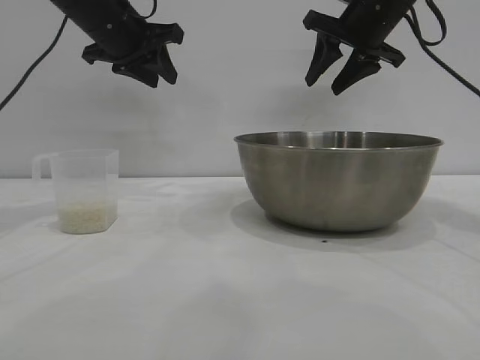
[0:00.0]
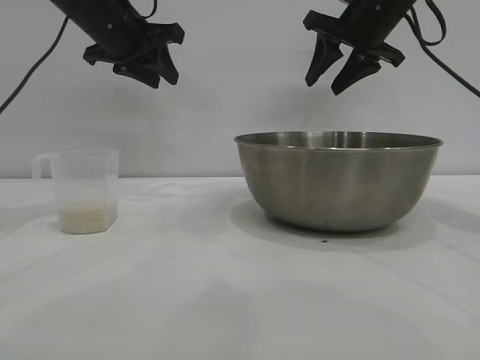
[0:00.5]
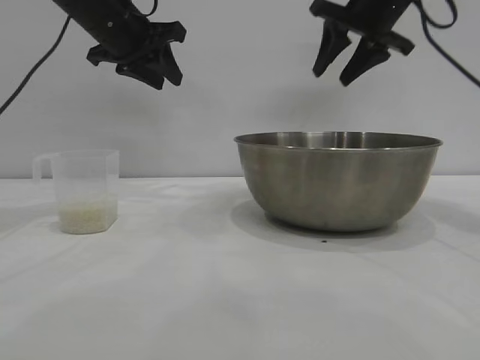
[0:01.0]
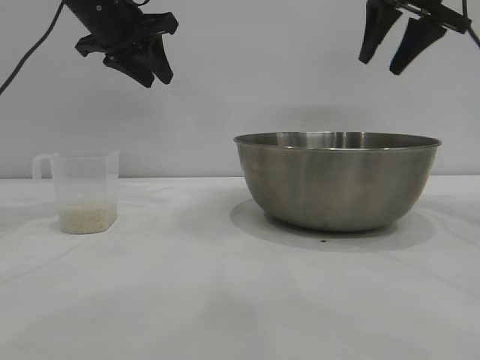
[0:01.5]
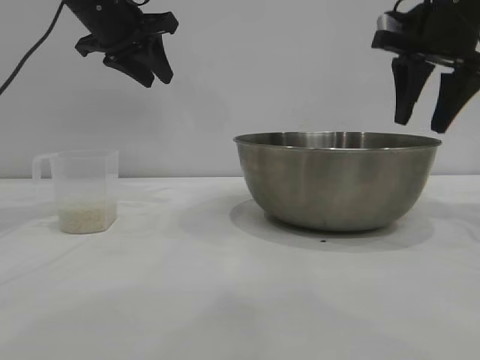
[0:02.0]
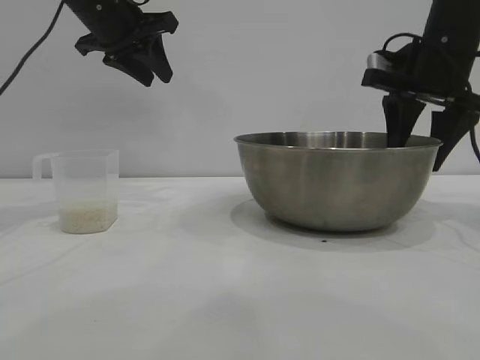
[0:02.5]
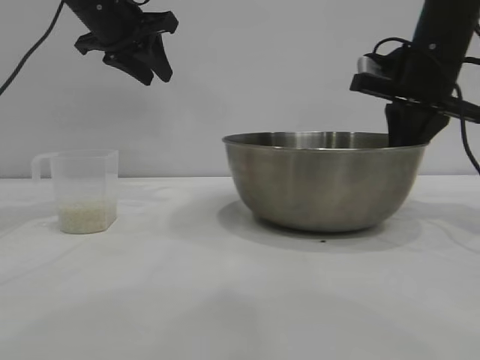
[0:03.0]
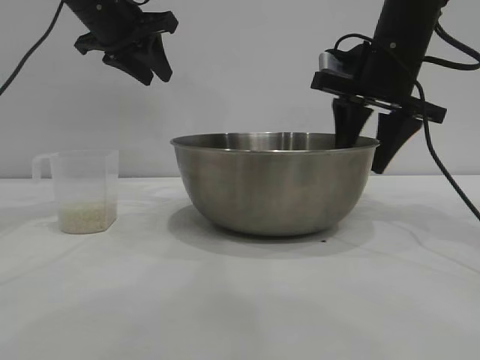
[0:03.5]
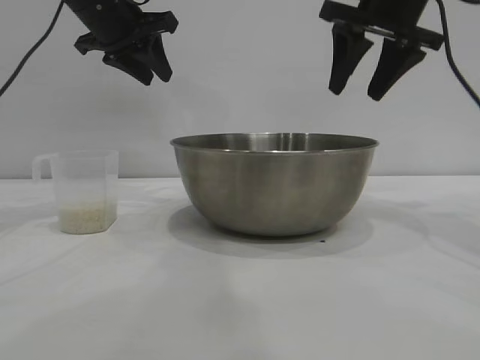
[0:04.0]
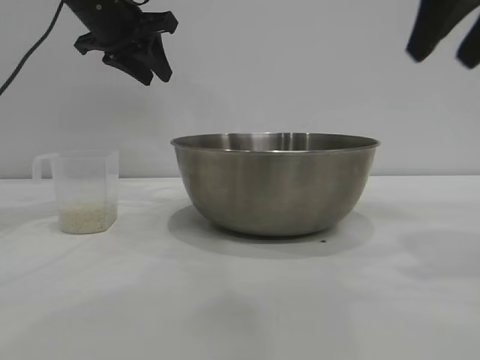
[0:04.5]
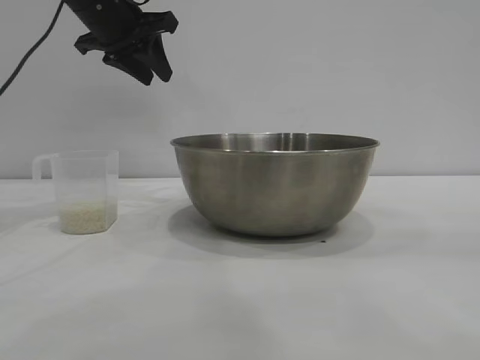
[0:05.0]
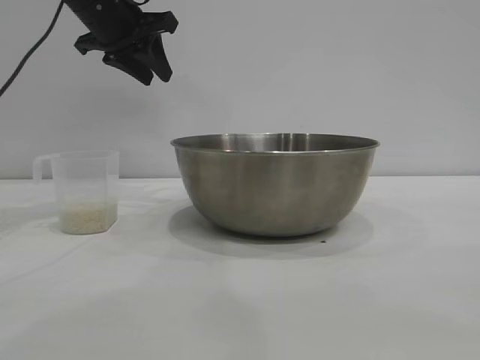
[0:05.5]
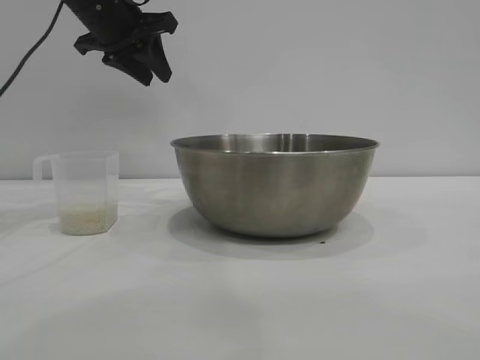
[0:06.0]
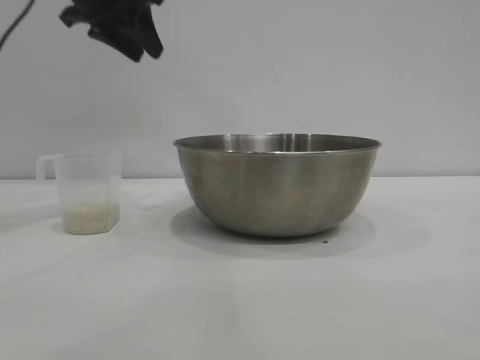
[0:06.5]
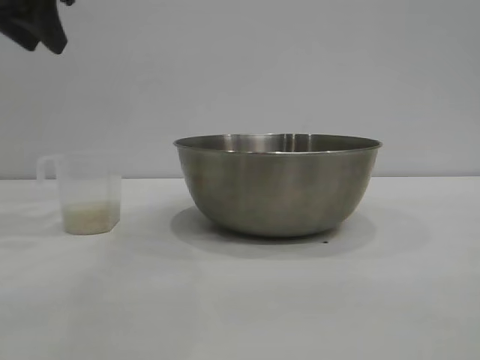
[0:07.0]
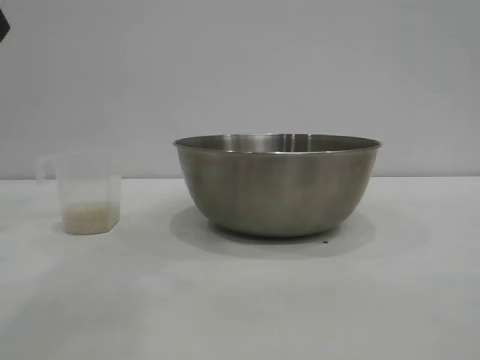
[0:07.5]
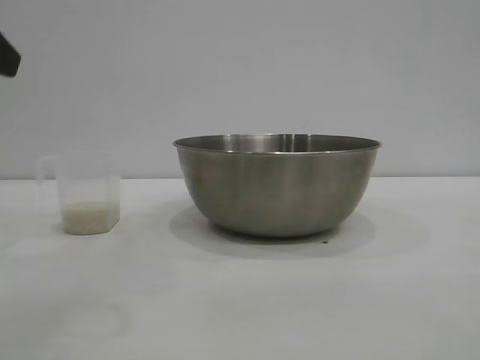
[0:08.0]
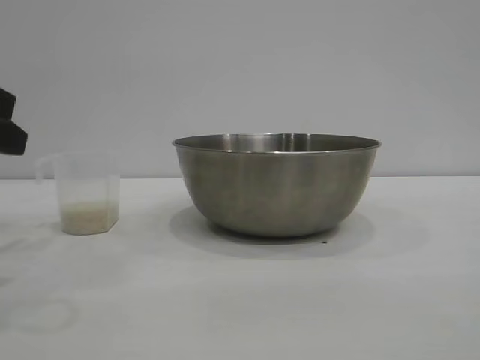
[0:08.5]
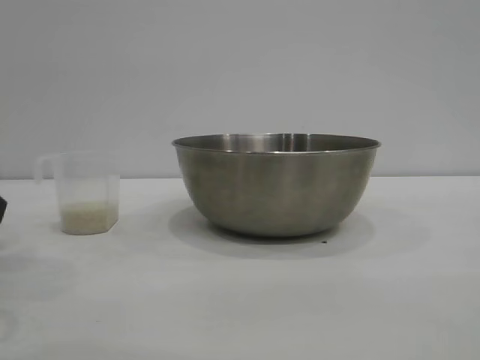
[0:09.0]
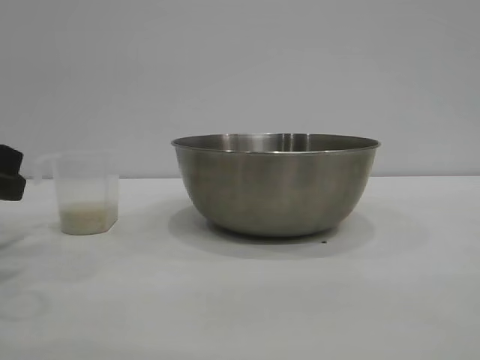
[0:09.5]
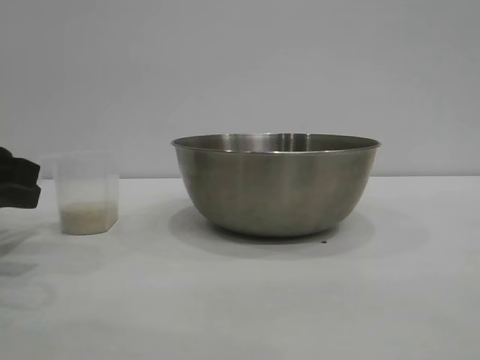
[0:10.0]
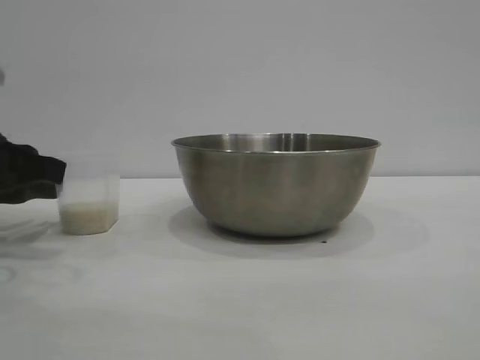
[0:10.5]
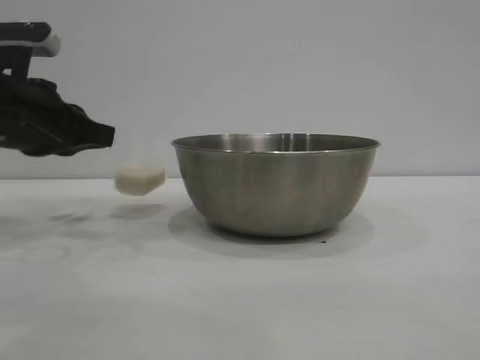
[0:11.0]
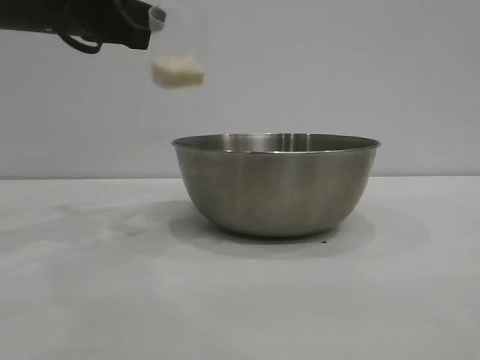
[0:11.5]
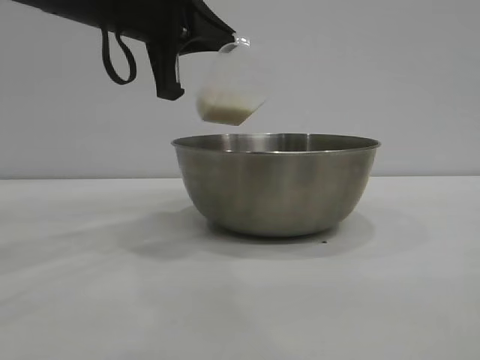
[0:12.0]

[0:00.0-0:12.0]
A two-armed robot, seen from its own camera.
Task of the whole recording: the right gripper grasp the rice container and place it in the center of the table, the left gripper grasp the rice scoop and pour the rice into the rice container.
Step, 0:00.0 to 0:03.5: Move the bowl to the center of view with the right gripper.
Step, 0:04.0 to 0:11.0: Pick up the cup with rice in it with the left gripper.

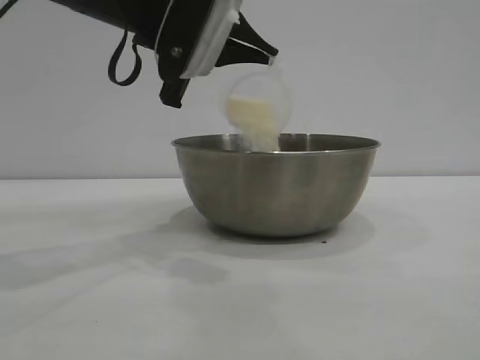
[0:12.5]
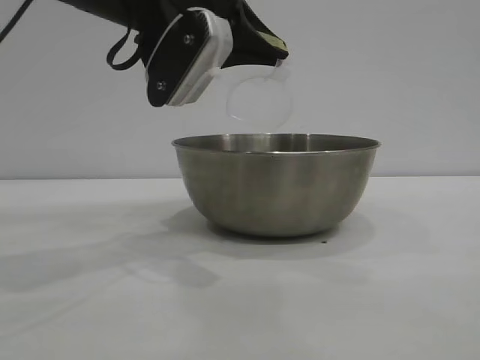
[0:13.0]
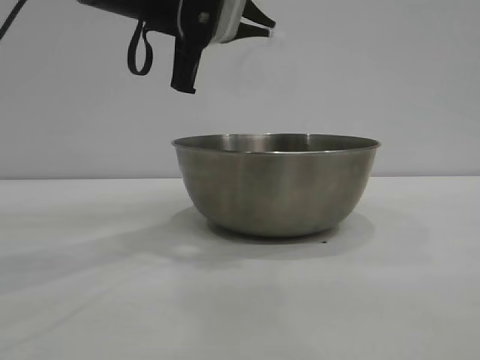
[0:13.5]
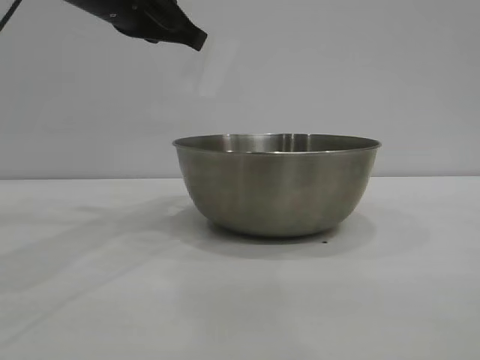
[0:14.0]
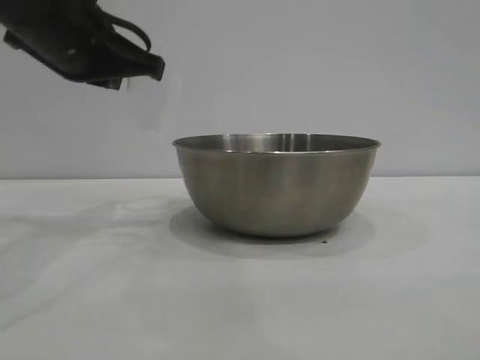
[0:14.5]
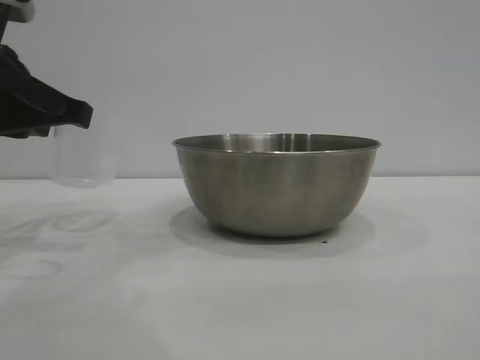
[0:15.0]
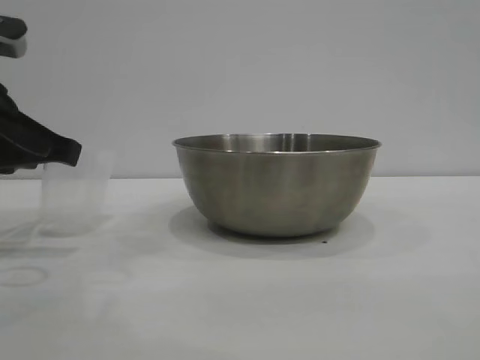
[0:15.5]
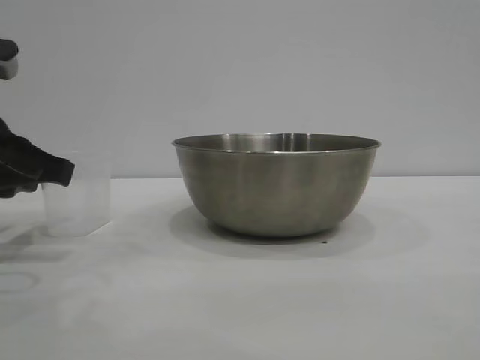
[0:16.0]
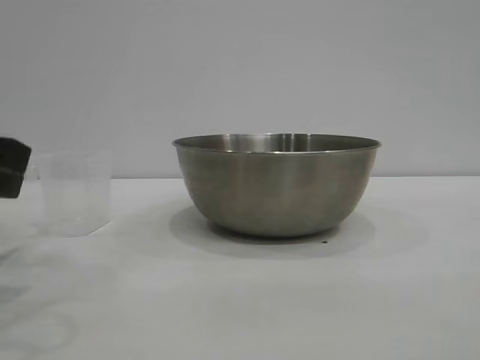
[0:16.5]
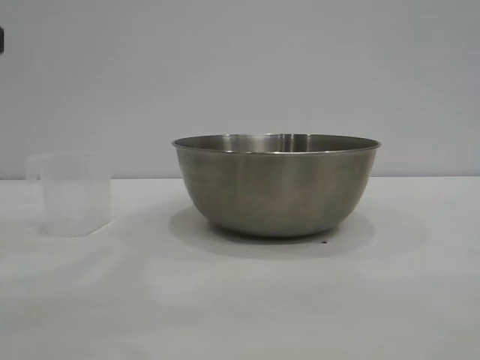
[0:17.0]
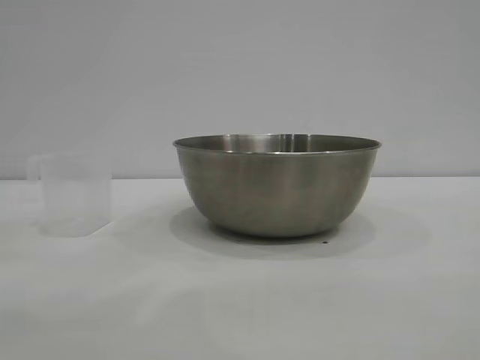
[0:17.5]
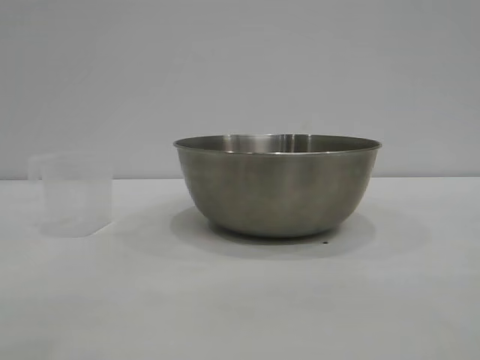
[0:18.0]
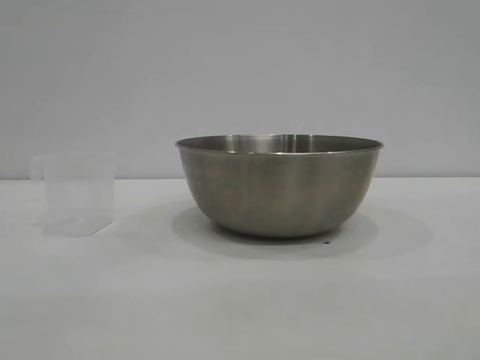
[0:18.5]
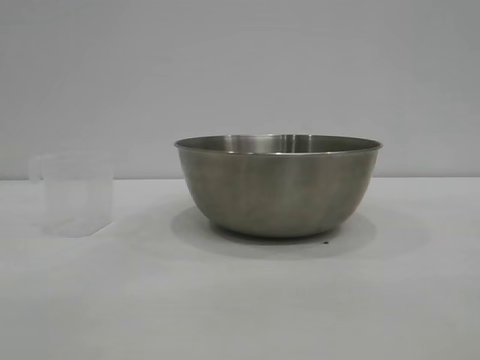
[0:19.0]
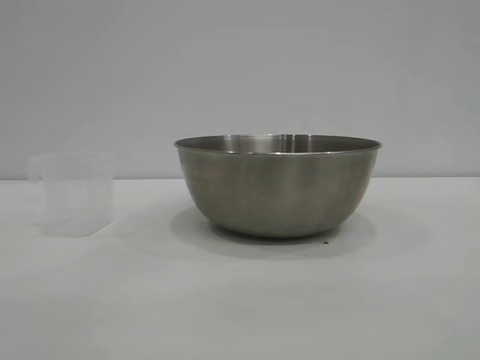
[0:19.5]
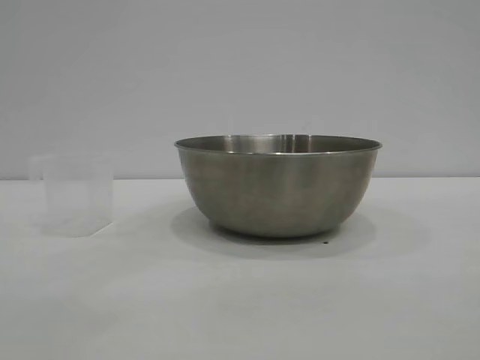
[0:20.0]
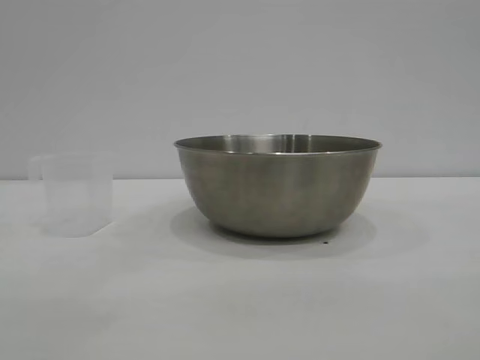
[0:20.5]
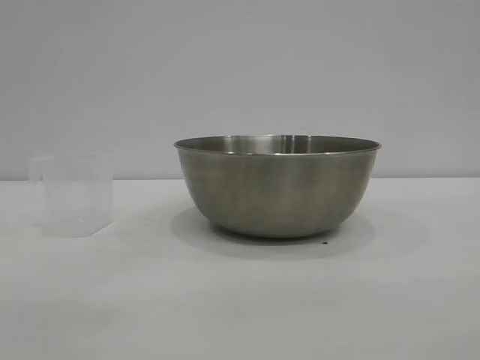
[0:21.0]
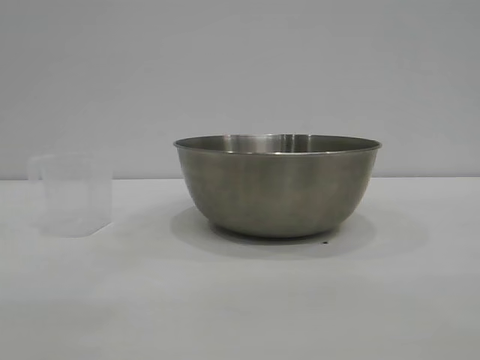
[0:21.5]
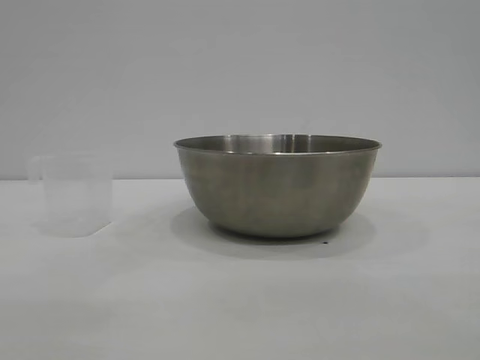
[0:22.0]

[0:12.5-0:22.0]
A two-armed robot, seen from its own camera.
Task of the whole recording: the right gripper grasp the rice container and place it in the center of the table, the left gripper grasp the rice scoop and pour the rice into the rice container.
Step, 0:13.5 to 0:16.0: Place the cup on the table with the left gripper.
